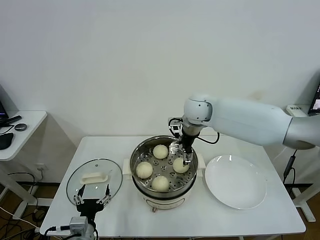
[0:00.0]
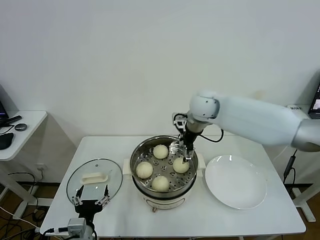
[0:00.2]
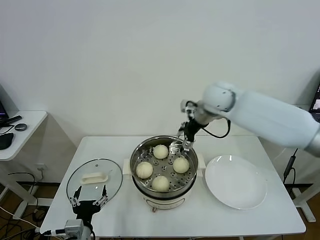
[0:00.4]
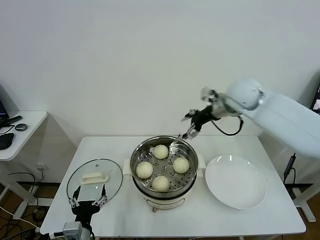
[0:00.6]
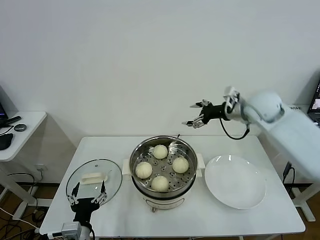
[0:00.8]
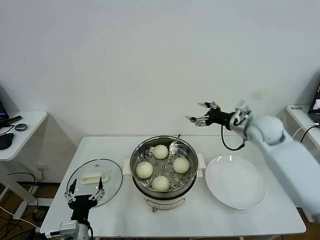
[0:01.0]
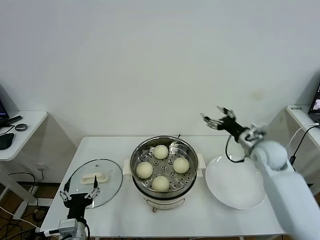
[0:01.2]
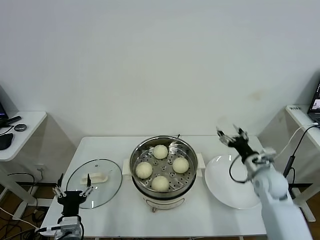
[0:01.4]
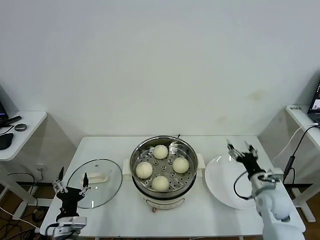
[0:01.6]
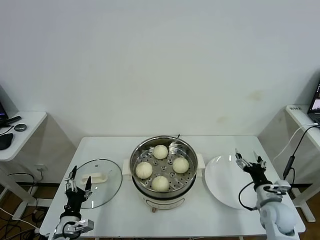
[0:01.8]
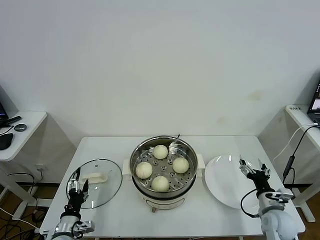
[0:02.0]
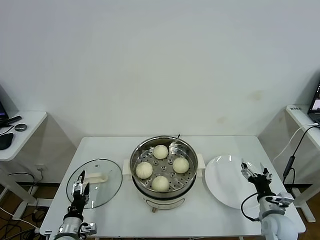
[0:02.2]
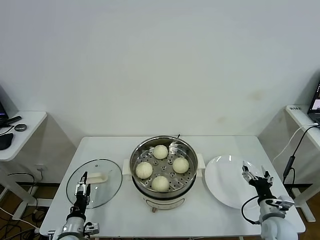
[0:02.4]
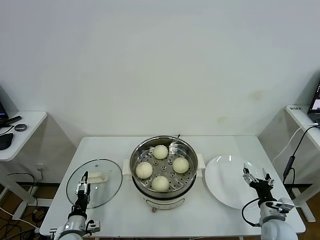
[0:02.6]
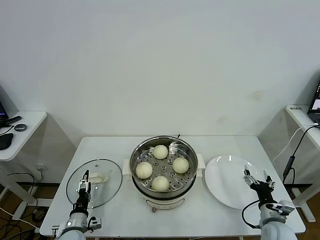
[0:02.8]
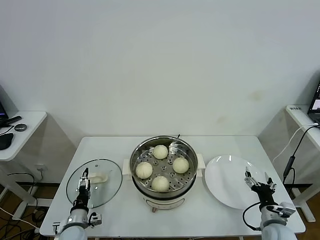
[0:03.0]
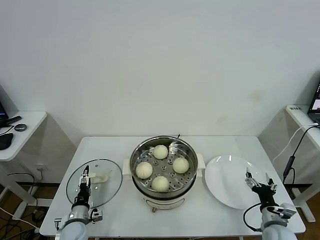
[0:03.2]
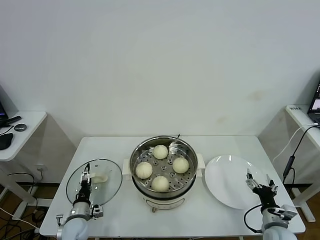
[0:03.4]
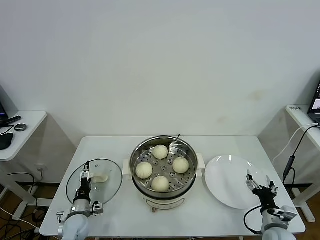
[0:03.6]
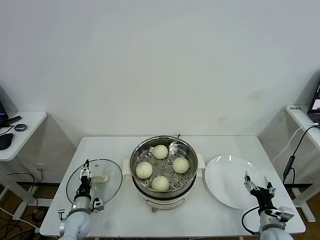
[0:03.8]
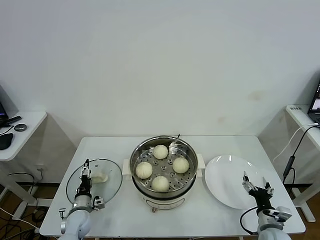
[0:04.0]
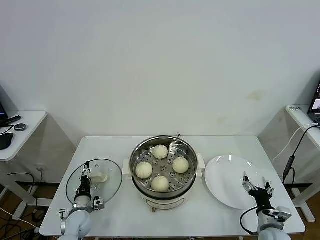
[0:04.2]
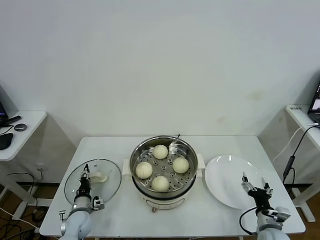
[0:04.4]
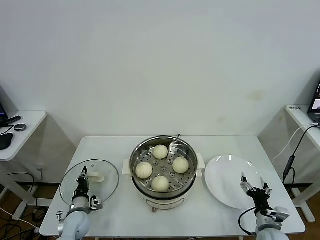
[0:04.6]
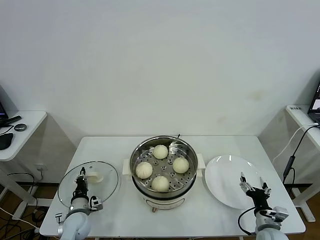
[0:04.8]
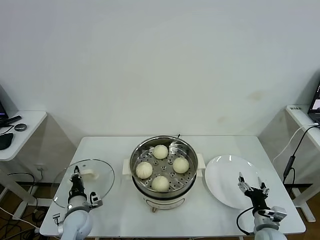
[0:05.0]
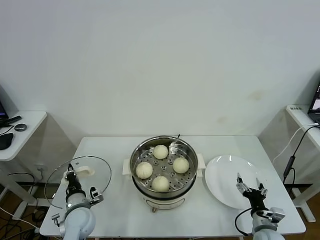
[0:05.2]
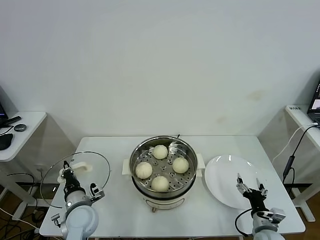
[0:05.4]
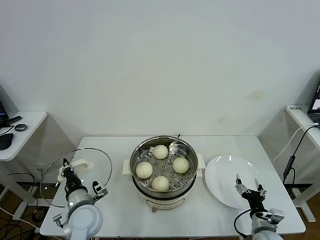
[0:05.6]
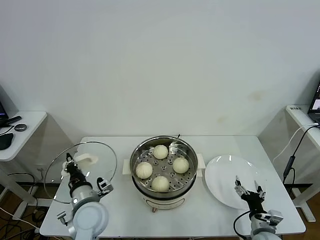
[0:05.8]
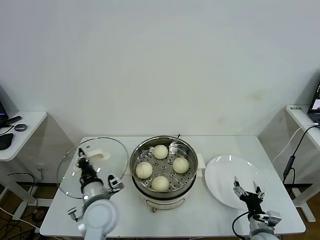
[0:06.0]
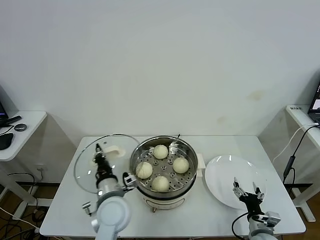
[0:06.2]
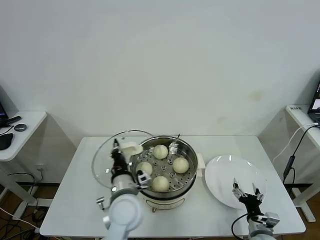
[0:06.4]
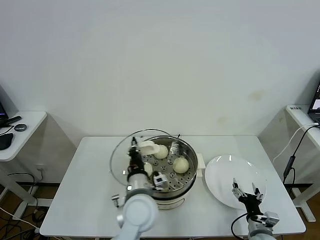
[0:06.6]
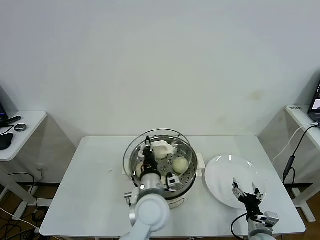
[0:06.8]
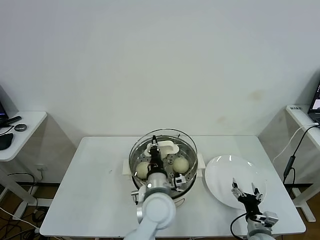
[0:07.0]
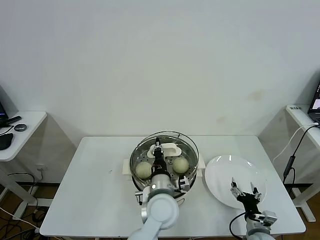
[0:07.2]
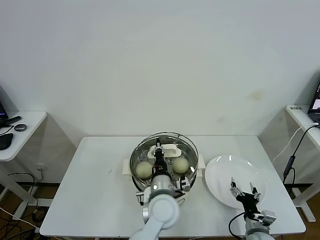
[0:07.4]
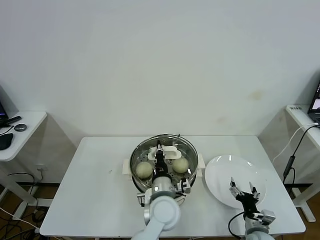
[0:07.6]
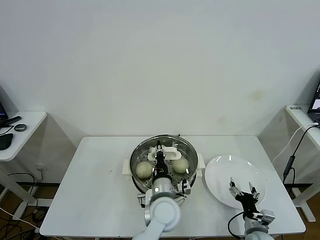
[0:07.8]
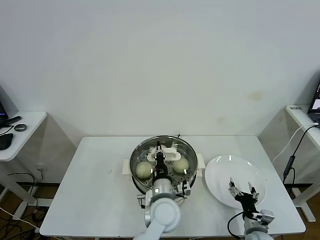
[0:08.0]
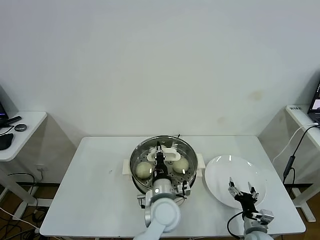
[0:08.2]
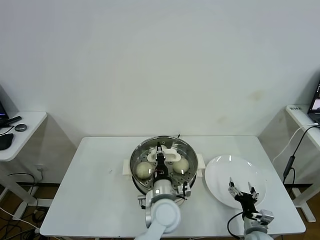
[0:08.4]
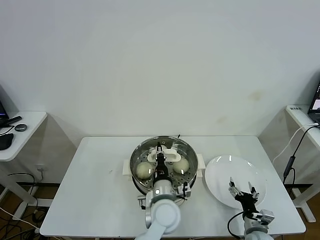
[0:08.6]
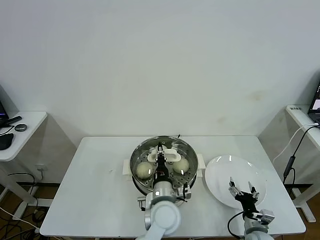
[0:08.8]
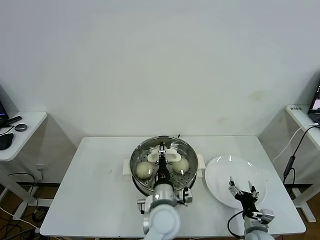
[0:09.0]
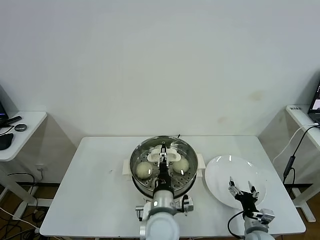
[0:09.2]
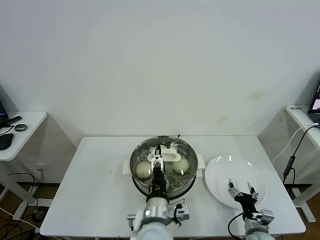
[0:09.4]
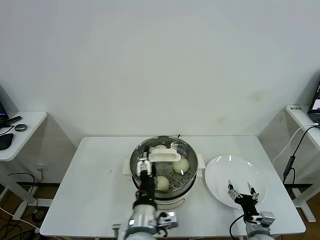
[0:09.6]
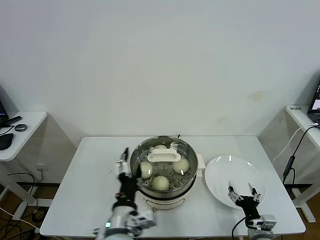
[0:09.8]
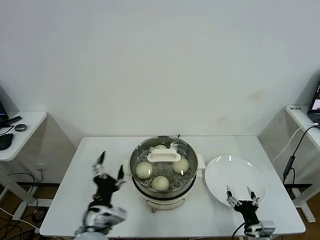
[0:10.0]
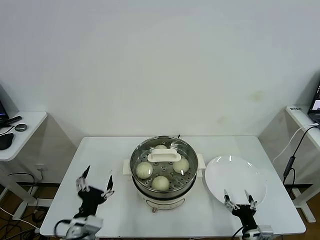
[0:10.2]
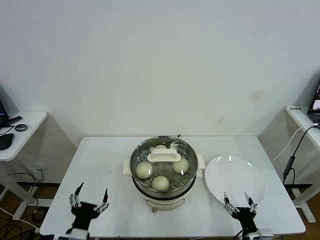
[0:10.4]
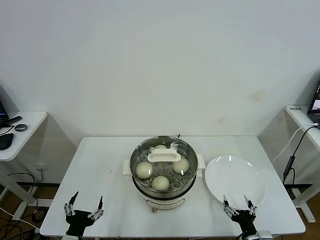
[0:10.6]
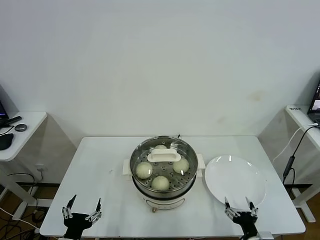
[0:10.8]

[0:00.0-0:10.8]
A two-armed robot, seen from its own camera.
Task of the whole recording: take steamed baozi put them in steamer.
Step, 0:00.4 to 0:04.8: Grasp the pot lid with left gripper.
Step, 0:05.0 to 0:09.4: Place the pot lid on the steamer with left gripper.
0:00.0 to 0:01.6: The right gripper goes roughly 40 cm to the right, downward and backward. Meanwhile the left gripper goes some 5 cm to the left.
0:01.6 to 0:03.0: The left gripper moves downward and forward, some 10 cm. Meanwhile the right gripper travels backward and downward by roughly 10 cm.
0:03.0 to 0:04.6: The left gripper travels forward by some 5 cm, and closes up.
0:04.6 to 0:06.2: The left gripper goes about 25 cm upward and to the right.
0:06.2 to 0:07.8: The left gripper goes approximately 15 cm to the right.
0:07.8 to 0:09.2: The left gripper opens.
0:09.2 to 0:10.8: The left gripper goes approximately 30 cm to the left and backward, and opens. Meanwhile the right gripper is displaced backward by approximately 10 cm.

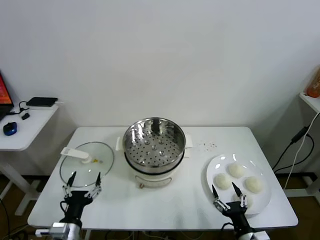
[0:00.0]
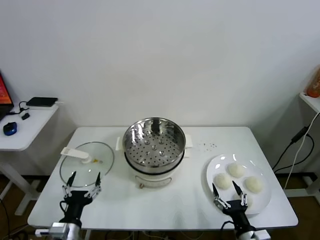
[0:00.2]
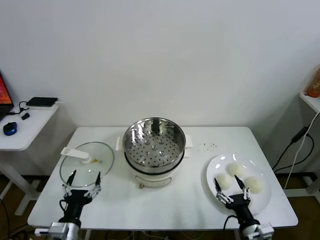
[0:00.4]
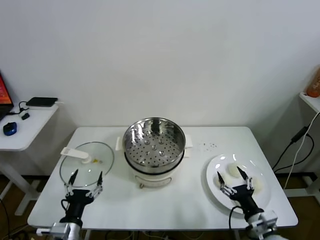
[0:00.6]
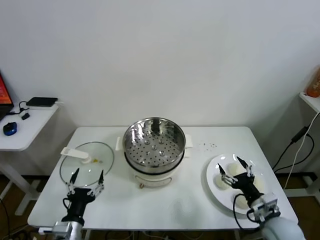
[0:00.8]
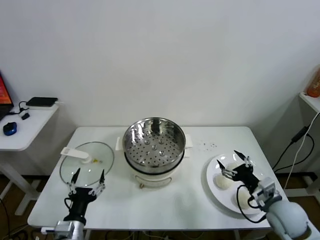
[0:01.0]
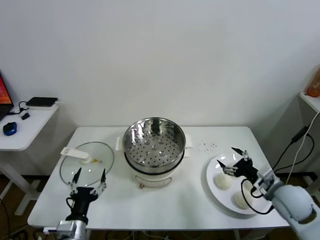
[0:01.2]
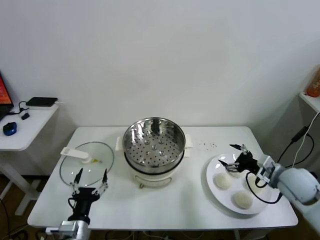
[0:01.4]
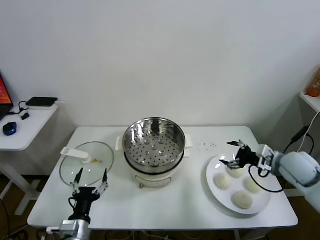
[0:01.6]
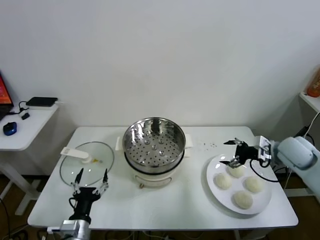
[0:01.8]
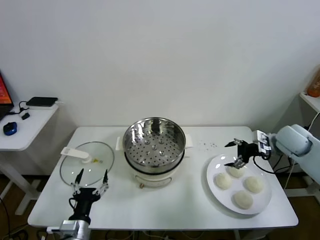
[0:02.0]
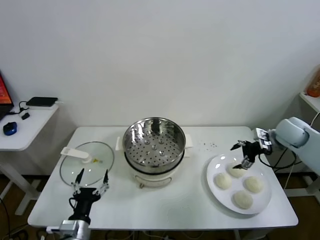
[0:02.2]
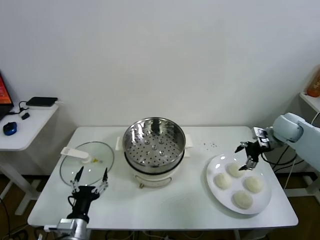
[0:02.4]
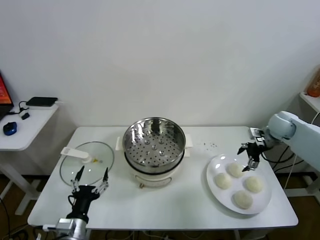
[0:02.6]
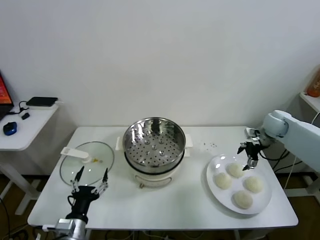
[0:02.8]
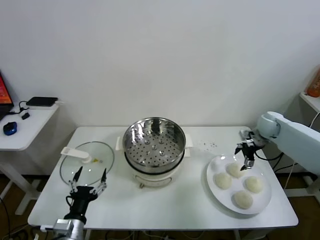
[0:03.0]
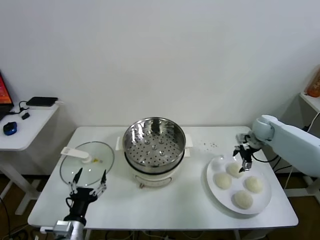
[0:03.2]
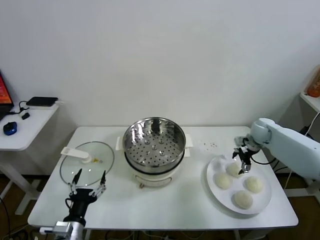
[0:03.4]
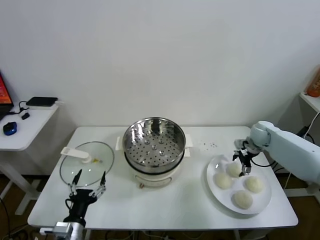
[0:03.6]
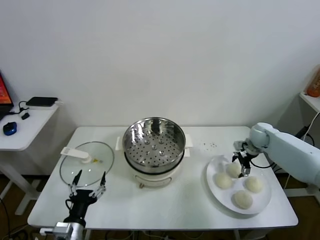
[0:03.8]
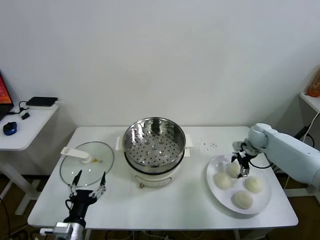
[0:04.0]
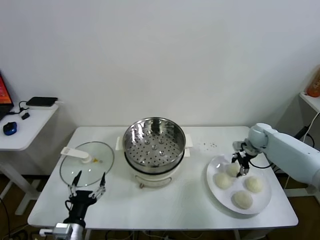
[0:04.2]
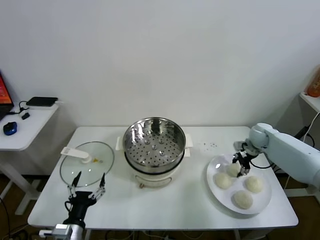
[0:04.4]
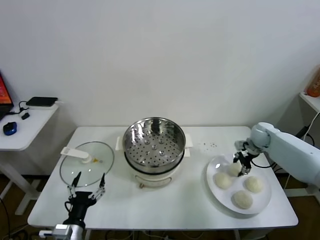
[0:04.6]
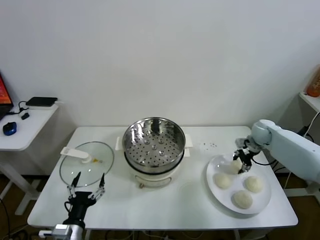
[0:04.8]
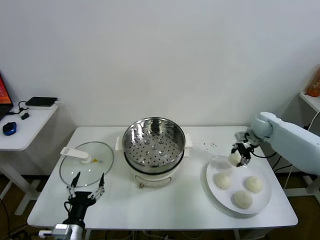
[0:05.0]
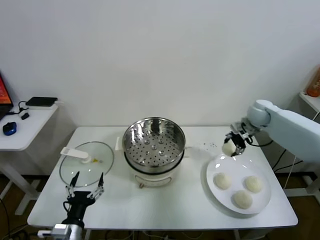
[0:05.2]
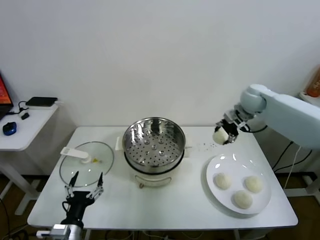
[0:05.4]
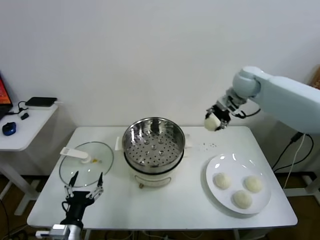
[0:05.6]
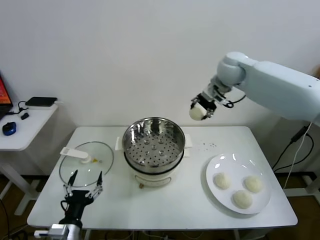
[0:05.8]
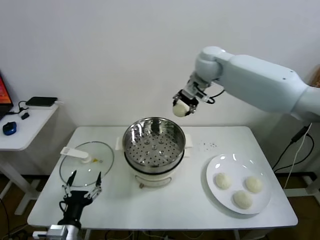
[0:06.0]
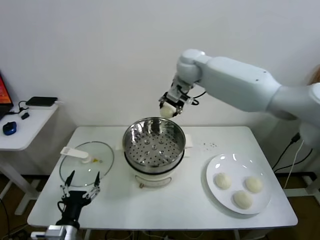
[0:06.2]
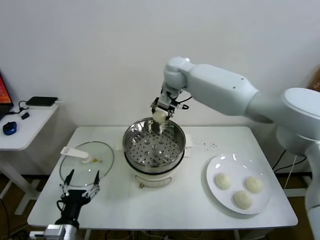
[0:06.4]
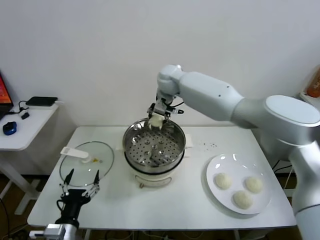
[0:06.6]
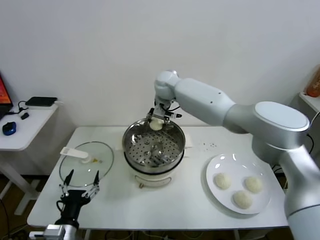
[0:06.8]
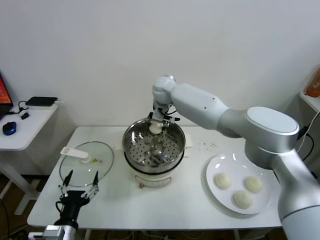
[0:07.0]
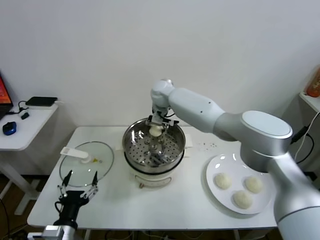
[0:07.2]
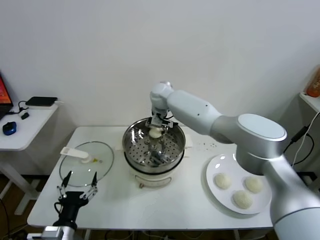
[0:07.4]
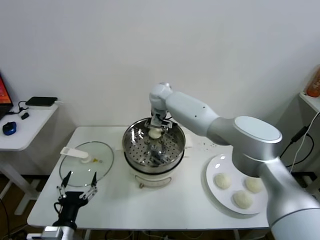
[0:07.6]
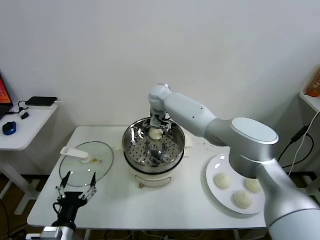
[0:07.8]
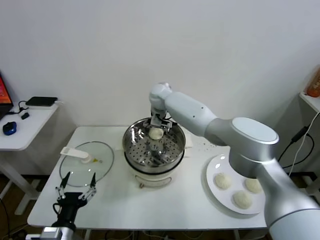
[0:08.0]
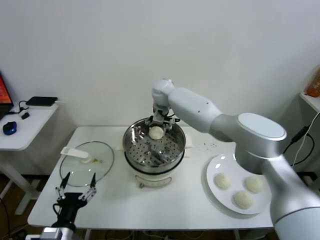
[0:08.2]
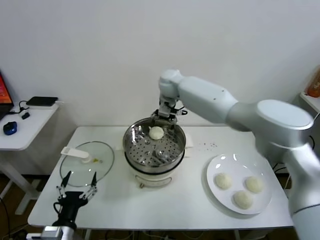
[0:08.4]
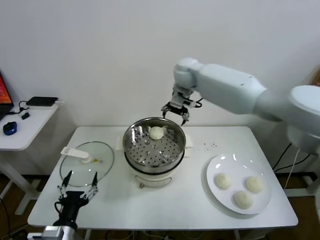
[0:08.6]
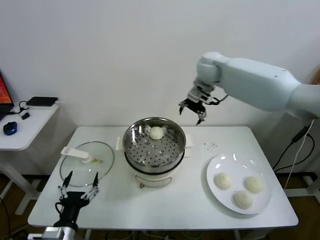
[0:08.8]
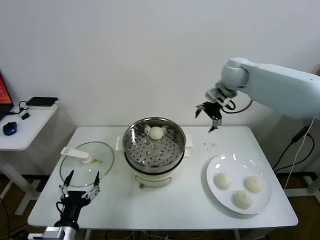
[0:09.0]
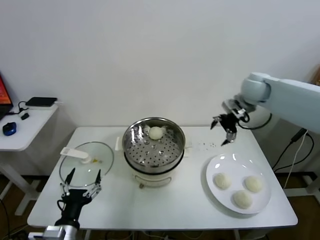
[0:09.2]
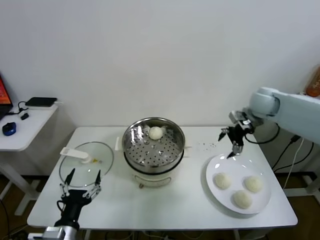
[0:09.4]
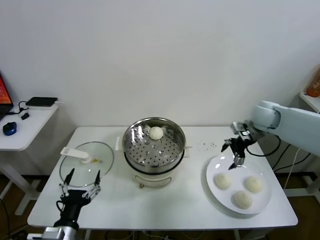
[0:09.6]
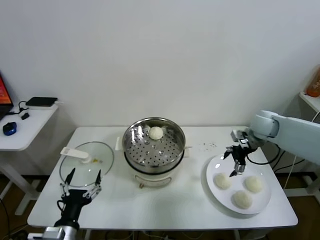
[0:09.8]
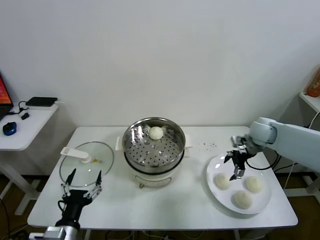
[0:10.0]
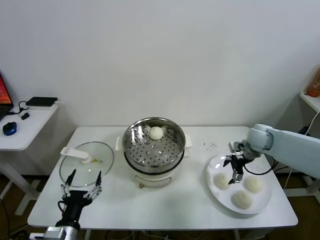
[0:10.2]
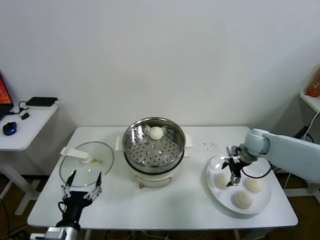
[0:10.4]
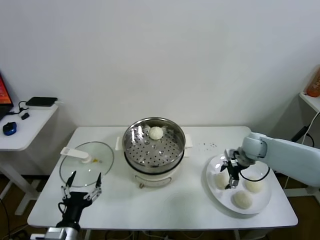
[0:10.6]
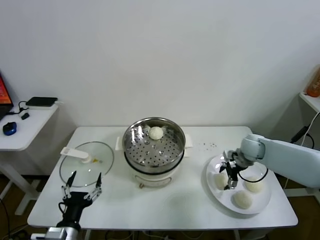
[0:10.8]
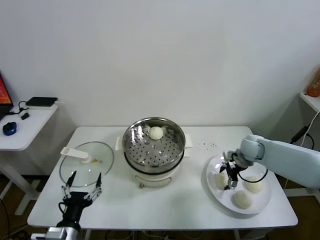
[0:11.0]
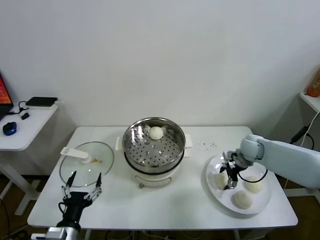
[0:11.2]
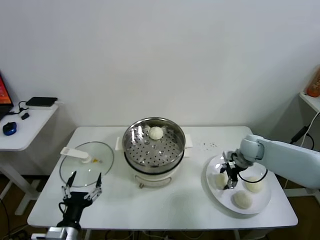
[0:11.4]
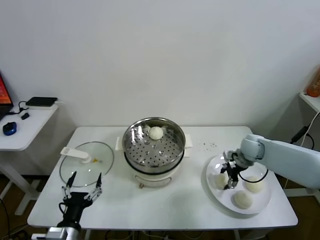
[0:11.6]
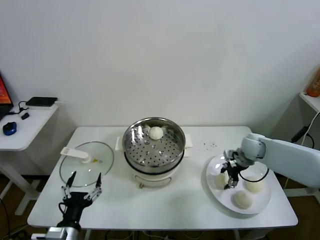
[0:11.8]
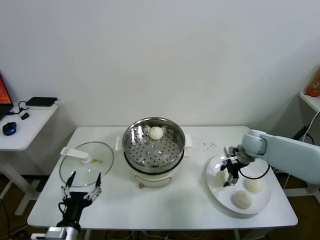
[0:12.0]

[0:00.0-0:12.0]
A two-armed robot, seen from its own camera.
Task of the whole recording: take steamed baozi put them in steamer.
Step, 0:00.0 to 0:04.4: Grasp the baozi in the plate with right gripper.
Step, 0:04.6 to 0:07.8: Place the baozi on the steamer with right gripper.
Step, 0:08.0 to 0:11.4: Grasp the baozi in the plate with right gripper.
0:01.6 to 0:03.0: The right gripper heads forward, covering approximately 15 cm.
0:03.0 to 0:04.4: The right gripper closes its fingers.
0:04.4 to 0:06.0: The right gripper moves to the left and upward, some 40 cm.
0:06.0 to 0:07.6: The right gripper goes roughly 20 cm downward and to the left, and opens up.
0:07.6 to 0:09.0: The right gripper shifts roughly 30 cm to the right, and opens its fingers.
0:09.0 to 0:10.4: The right gripper moves downward, approximately 25 cm.
0:10.4 to 0:12.0: The right gripper closes its fingers.
